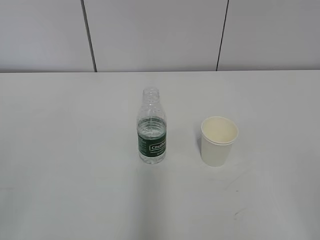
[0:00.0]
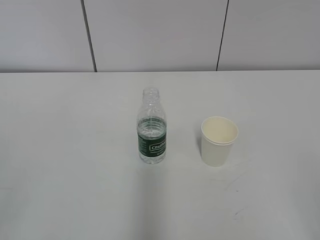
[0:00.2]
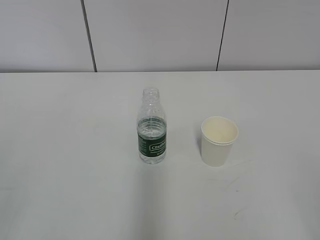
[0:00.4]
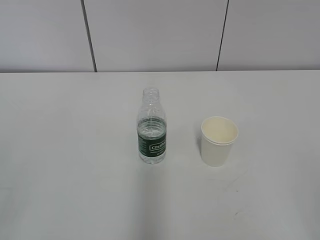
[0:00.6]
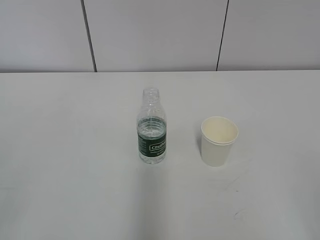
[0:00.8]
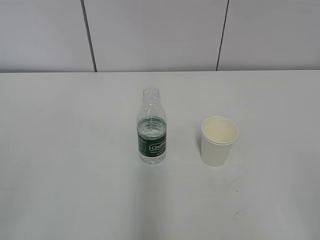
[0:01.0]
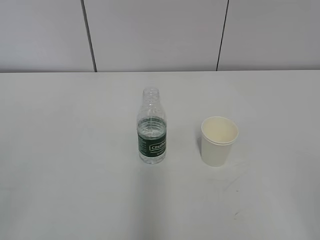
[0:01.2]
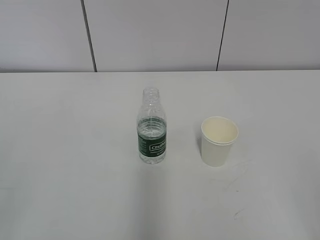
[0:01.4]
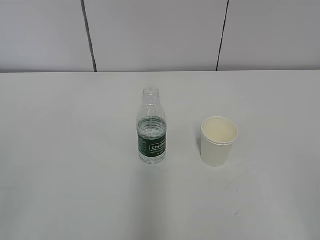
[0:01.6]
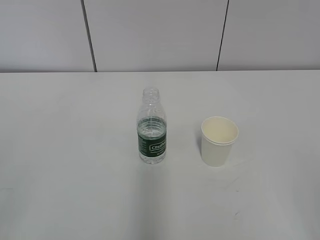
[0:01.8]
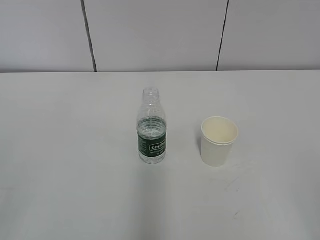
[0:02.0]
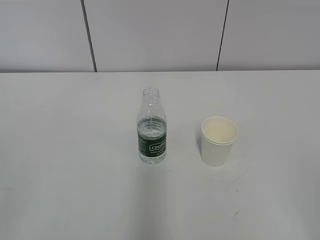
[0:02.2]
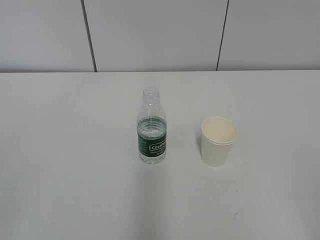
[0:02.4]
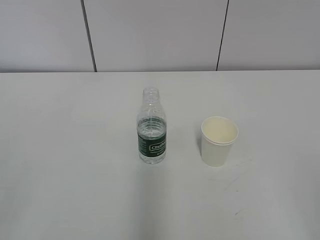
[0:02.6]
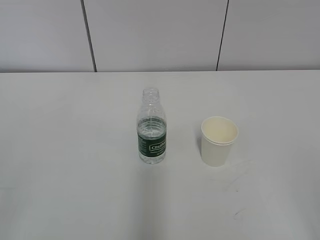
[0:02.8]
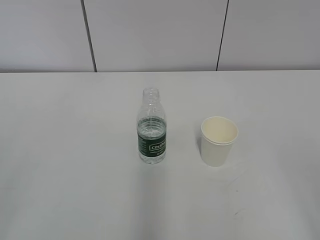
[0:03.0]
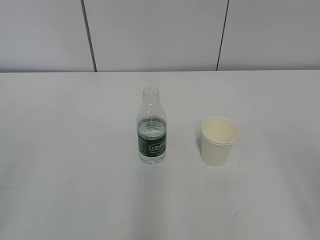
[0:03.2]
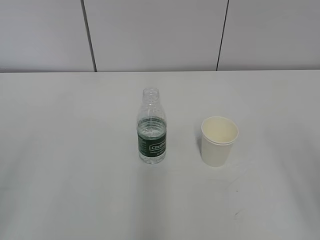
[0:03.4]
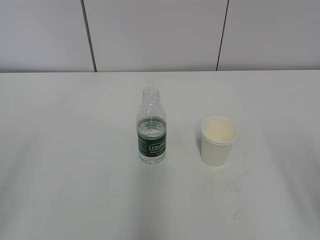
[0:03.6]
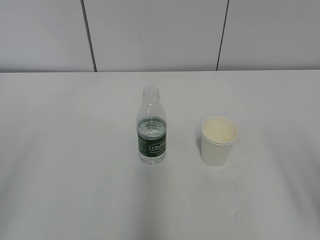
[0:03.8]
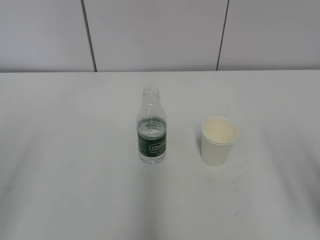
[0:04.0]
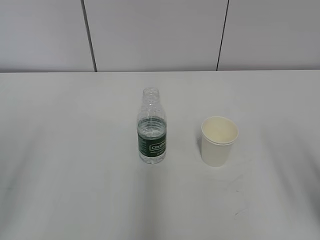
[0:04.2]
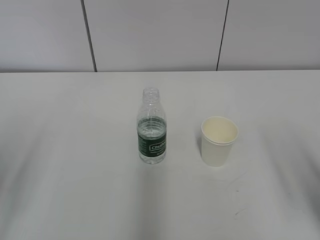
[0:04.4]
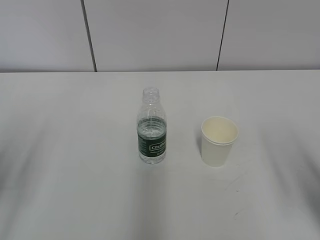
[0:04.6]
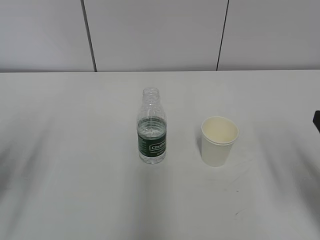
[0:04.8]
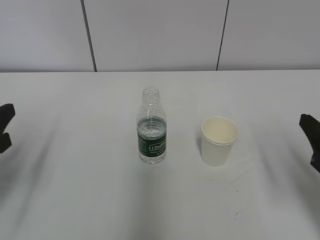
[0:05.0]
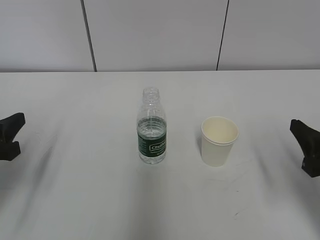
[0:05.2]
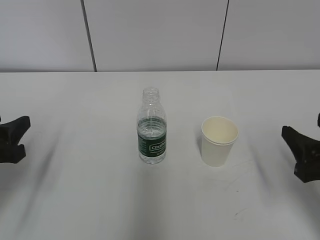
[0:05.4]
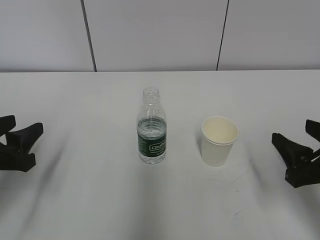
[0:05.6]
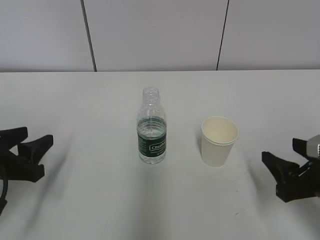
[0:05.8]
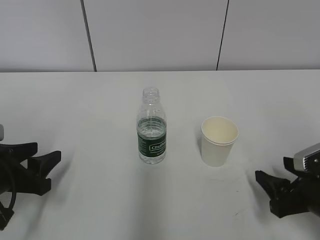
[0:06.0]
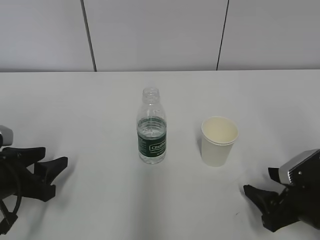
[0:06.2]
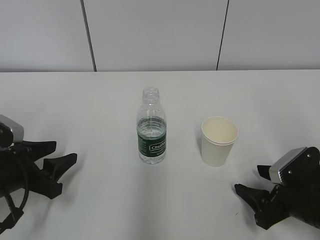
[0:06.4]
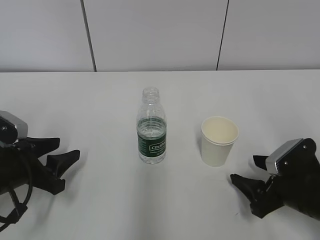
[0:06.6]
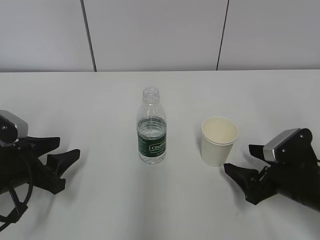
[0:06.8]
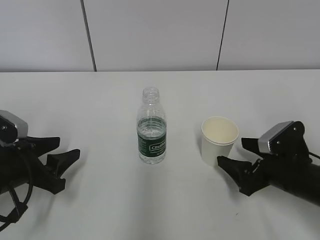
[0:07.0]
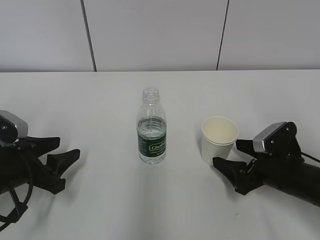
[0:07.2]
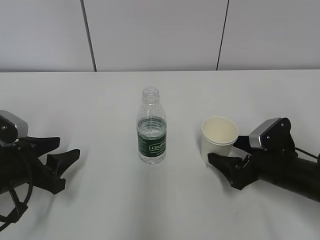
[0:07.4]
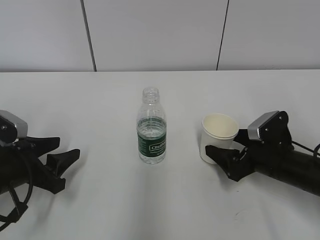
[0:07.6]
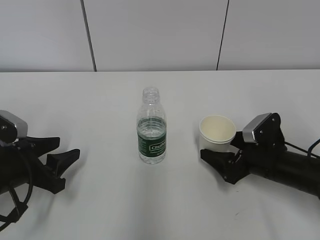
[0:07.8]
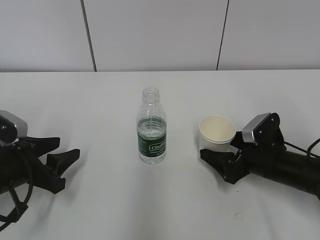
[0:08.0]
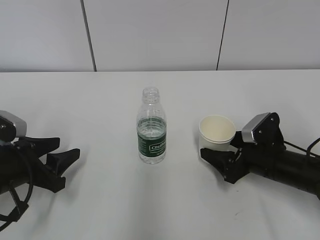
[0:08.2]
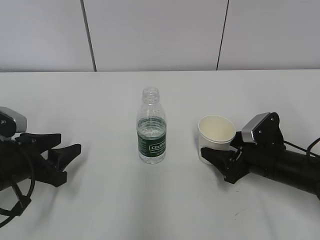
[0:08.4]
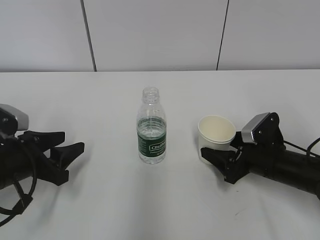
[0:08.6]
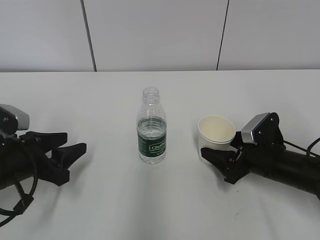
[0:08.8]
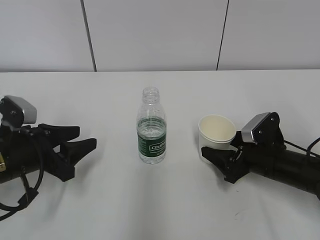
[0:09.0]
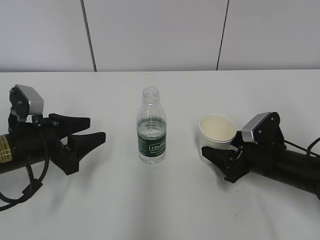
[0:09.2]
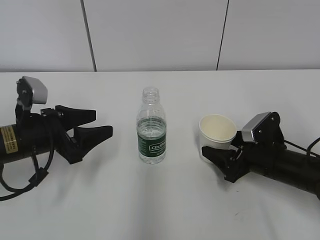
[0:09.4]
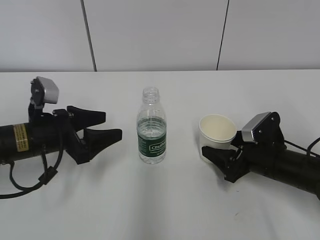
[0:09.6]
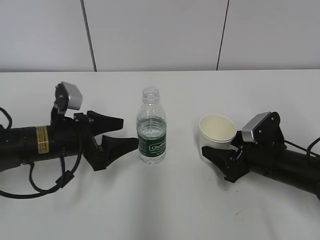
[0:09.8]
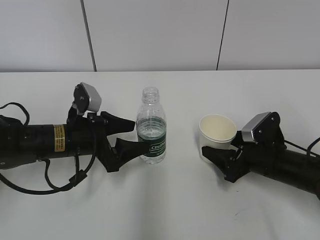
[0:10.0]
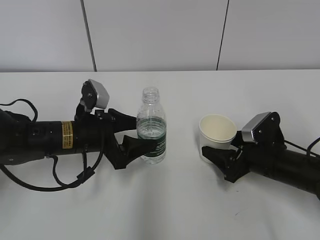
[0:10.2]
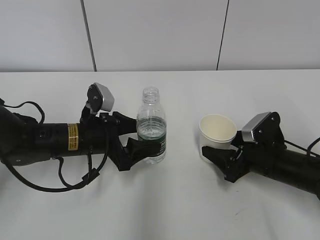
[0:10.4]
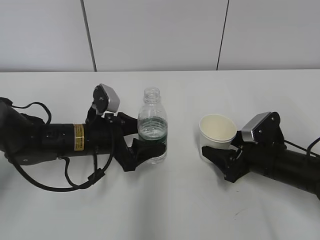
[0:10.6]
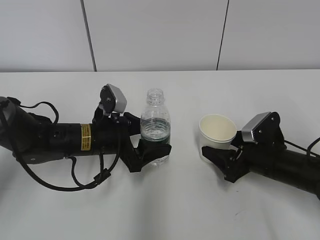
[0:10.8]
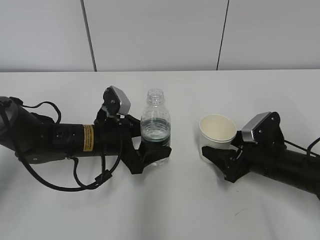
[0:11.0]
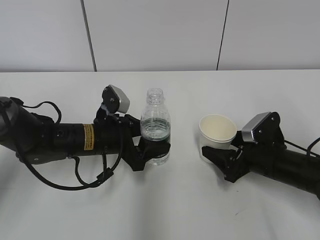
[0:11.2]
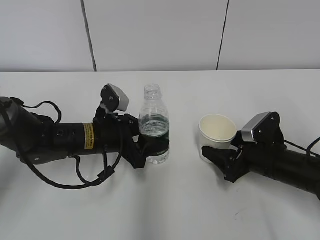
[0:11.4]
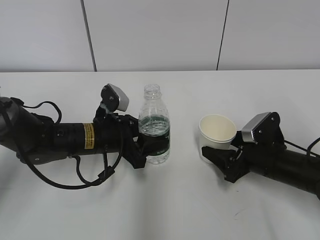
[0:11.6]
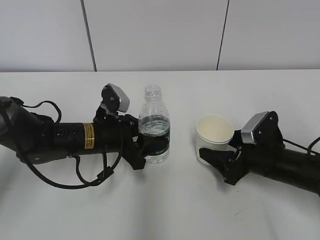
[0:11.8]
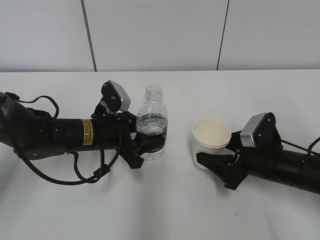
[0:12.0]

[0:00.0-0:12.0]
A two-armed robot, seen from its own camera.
Step, 0:00.0 to 0:09.6: Grab the paper cup with the right hand.
Step, 0:00.0 to 0:09.6: Grab the water bottle with the left hand.
0:04.4 to 0:06.0: The two grippers go some 15 cm downward and forward.
0:06.0 to 0:07.6: The right gripper travels forward by roughly 10 cm, and opens its fingers.
0:07.6 to 0:09.0: The right gripper closes up.
0:09.0 to 0:10.4: The left gripper moves to the right and forward, approximately 10 cm, and opens its fingers.
0:10.4 to 0:12.0: The left gripper closes up.

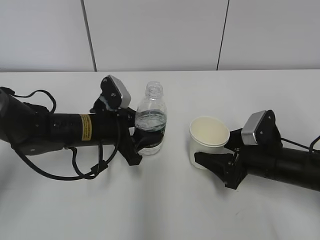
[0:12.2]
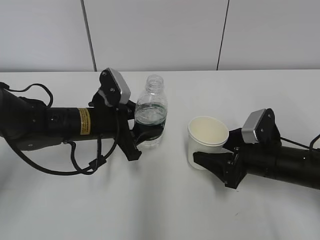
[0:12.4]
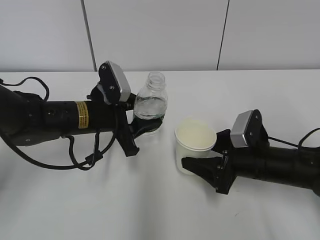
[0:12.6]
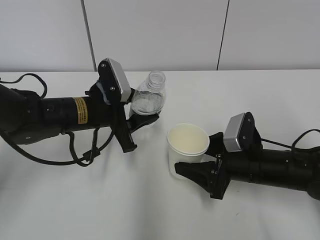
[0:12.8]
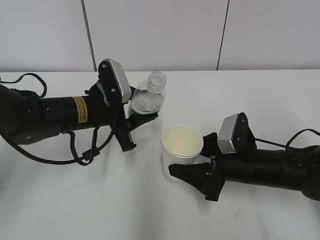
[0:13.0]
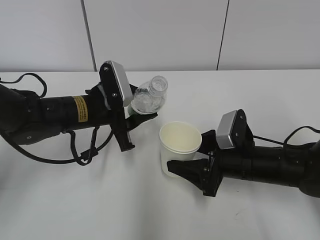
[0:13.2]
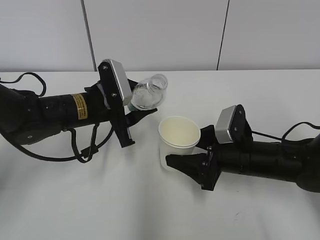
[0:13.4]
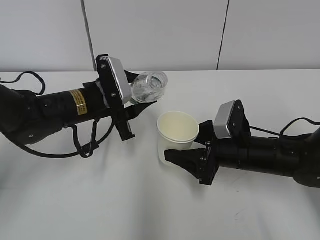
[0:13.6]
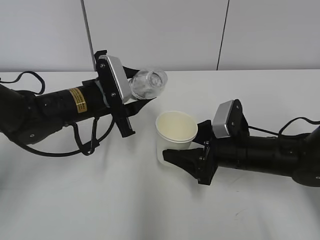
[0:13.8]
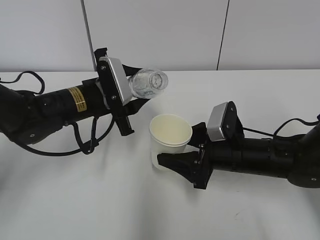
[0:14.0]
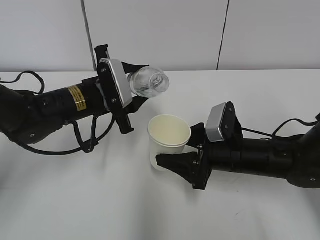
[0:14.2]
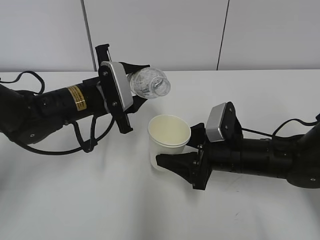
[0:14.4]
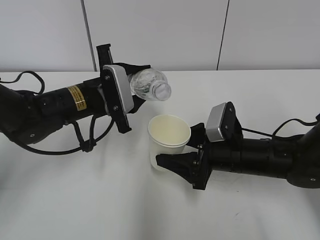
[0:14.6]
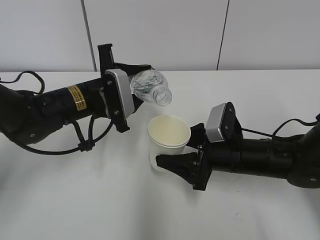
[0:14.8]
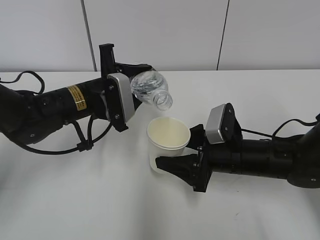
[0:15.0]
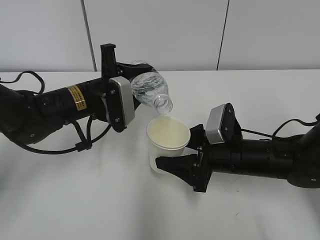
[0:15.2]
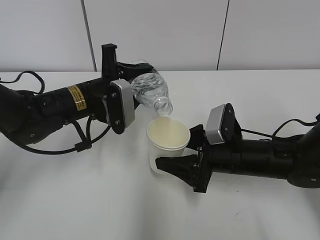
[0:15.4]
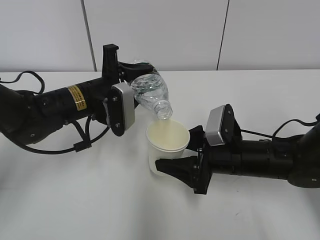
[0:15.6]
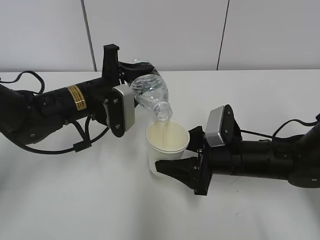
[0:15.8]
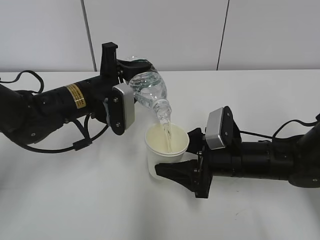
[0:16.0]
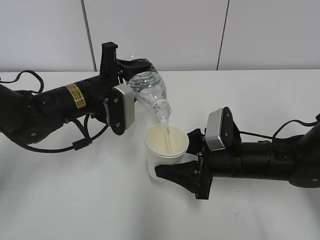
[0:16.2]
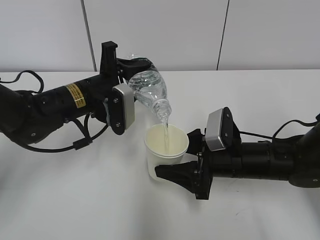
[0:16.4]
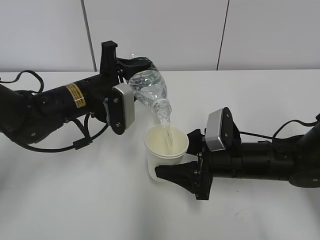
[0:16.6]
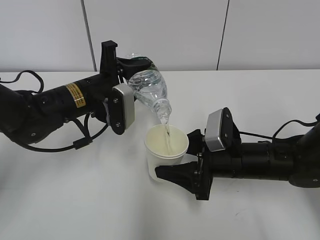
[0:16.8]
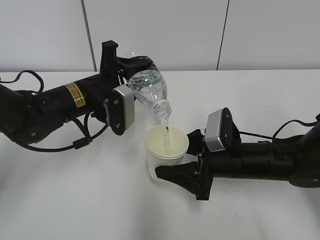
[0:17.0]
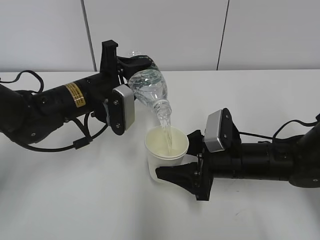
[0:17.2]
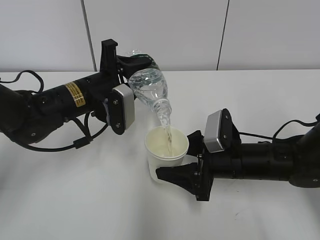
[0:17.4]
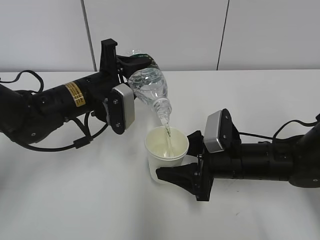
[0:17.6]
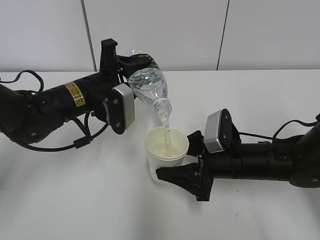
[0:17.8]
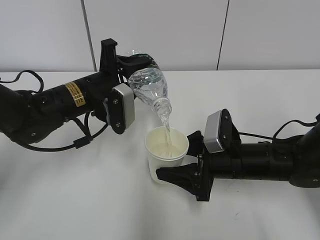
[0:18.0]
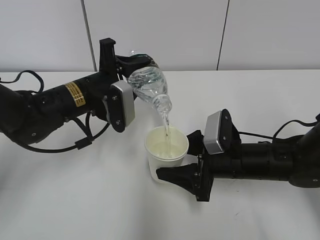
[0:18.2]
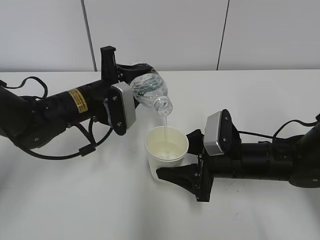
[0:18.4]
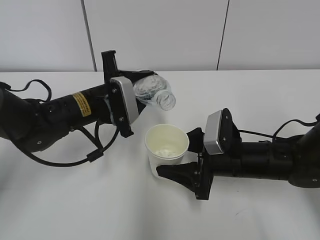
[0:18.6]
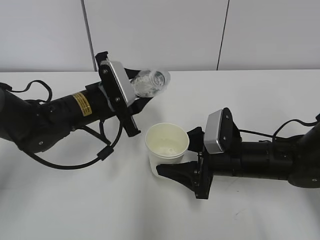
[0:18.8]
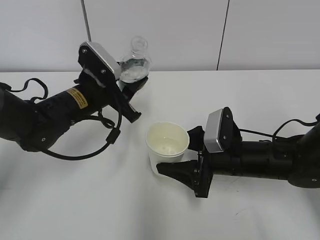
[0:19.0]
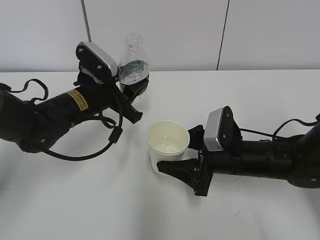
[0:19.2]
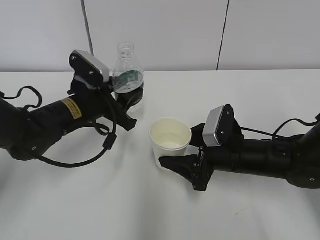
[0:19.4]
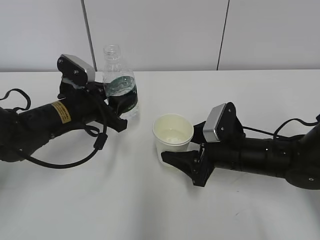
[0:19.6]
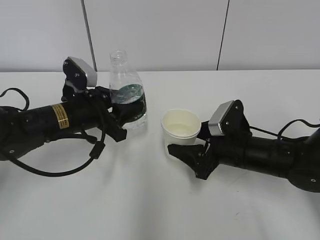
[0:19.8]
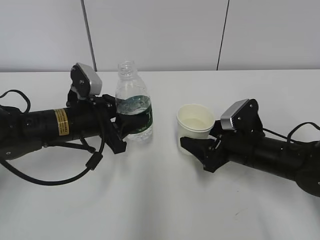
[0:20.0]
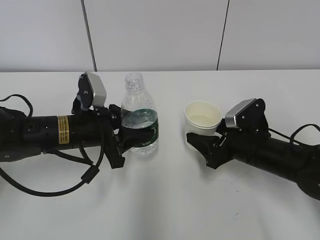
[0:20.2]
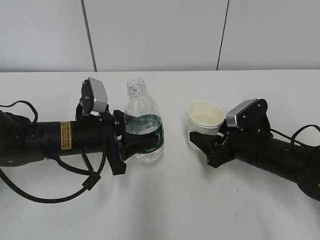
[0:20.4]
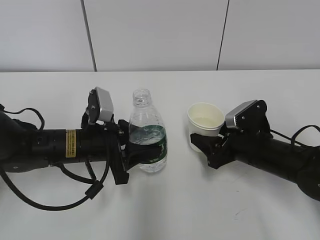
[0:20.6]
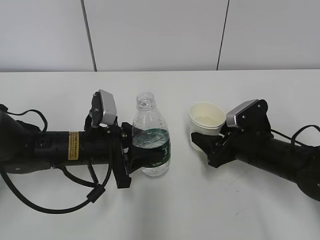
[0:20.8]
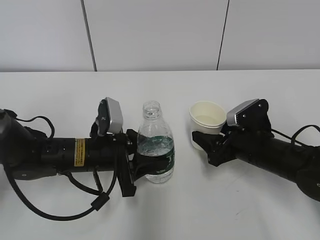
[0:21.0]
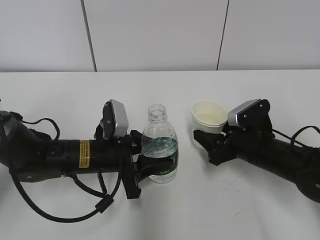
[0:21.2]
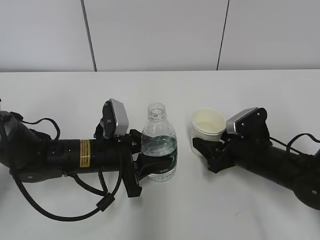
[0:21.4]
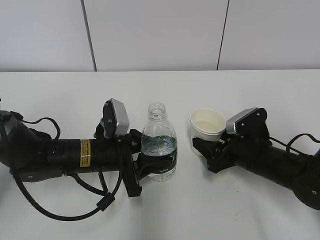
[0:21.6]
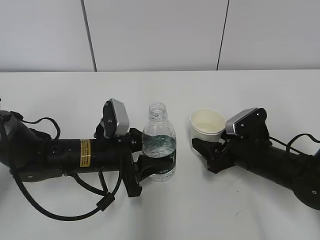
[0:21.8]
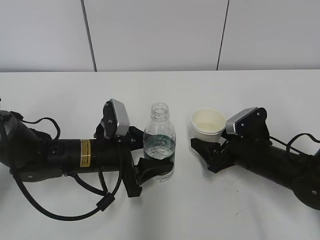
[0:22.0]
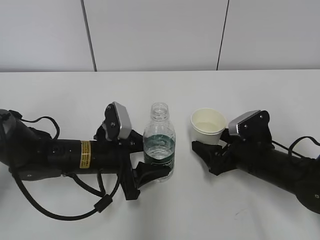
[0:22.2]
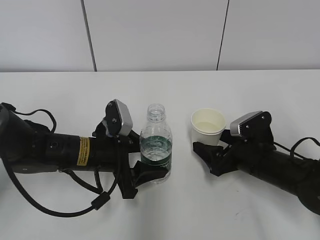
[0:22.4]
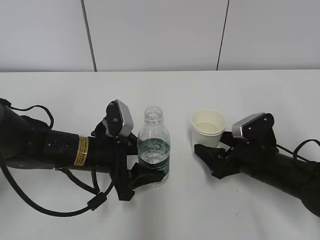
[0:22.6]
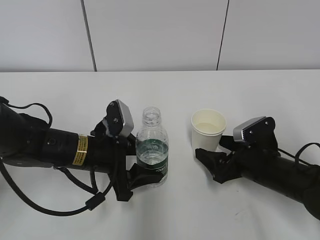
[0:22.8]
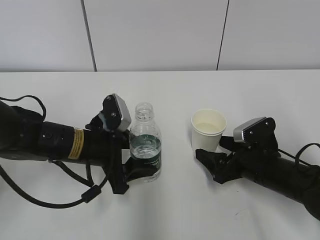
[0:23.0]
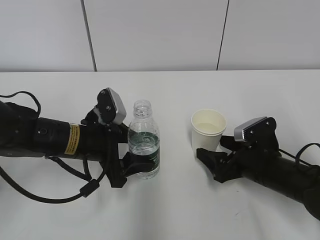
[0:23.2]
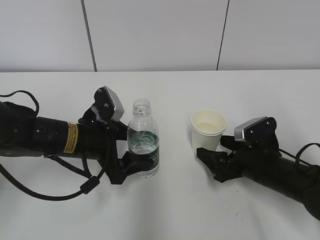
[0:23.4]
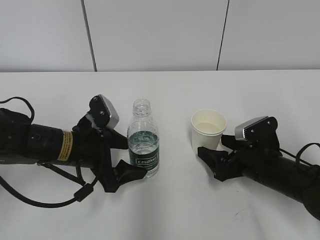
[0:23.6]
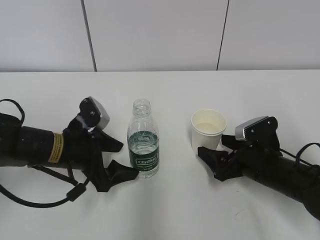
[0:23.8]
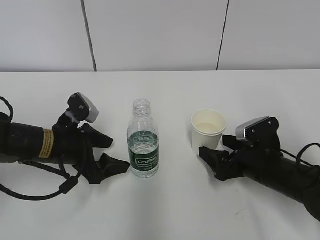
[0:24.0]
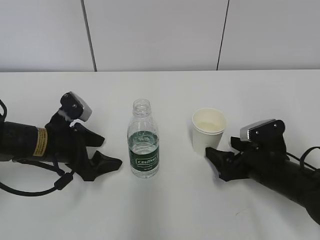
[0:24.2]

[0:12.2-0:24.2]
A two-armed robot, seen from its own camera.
Step, 0:13.0 to 0:15.4: Fill water with the right hand.
Step, 0:13.0 to 0:15.4: Pour water with the left hand.
Step, 0:15.6 to 0:16.2: Collect water with the left hand.
Step, 0:16.4 to 0:18.2: Place the paper cup with the right hand.
0:12.2 to 0:13.8: The left gripper is displaced upward by roughly 5 cm. The right gripper goes approximately 5 cm to the left.
0:15.2 to 0:16.6: The grippers move only a little.
0:16.6 to 0:18.2: The two grippers keep their place.
0:19.8 to 0:21.2: The left gripper goes roughly 5 cm downward.
0:21.2 to 0:22.6: The right gripper opens, while the left gripper opens up.
0:22.6 to 0:24.2: The left gripper shifts approximately 5 cm to the left, and opens its fingers.
